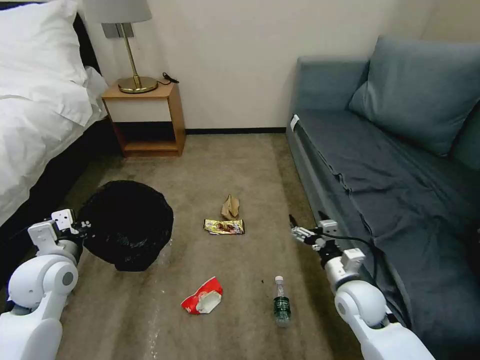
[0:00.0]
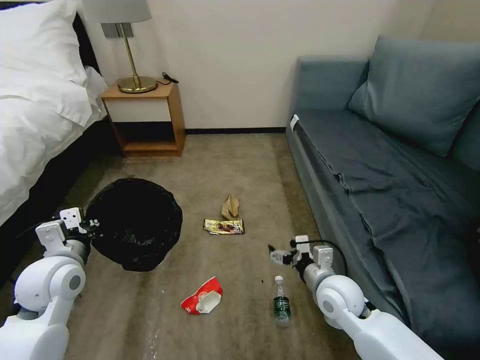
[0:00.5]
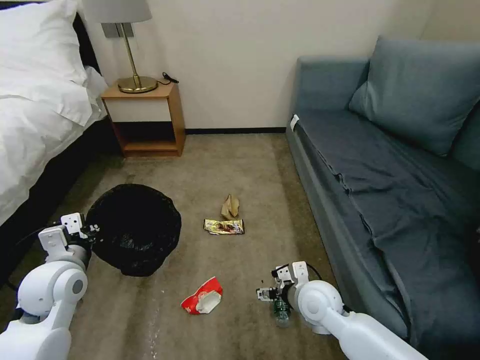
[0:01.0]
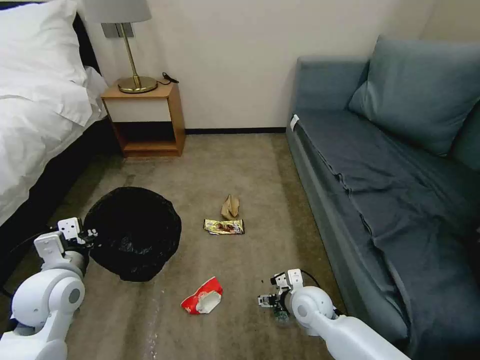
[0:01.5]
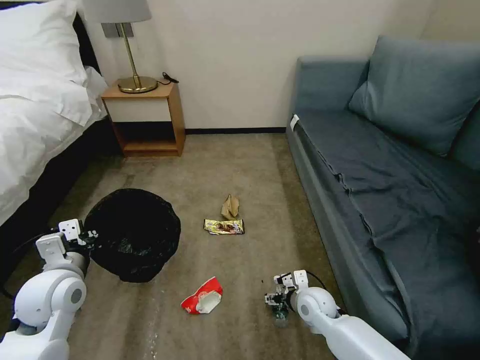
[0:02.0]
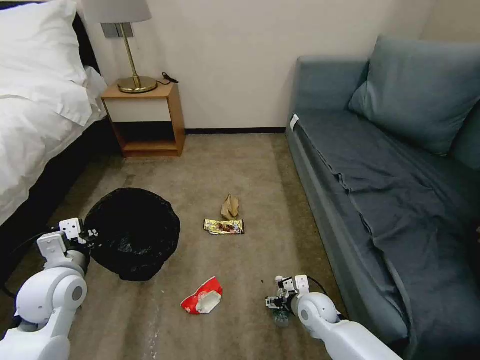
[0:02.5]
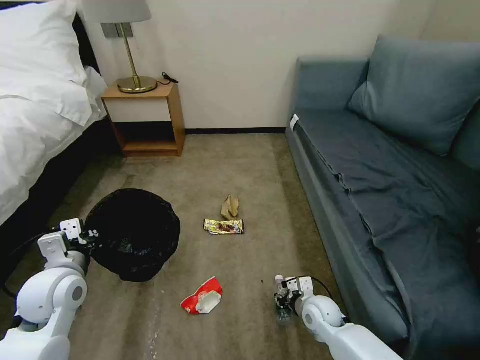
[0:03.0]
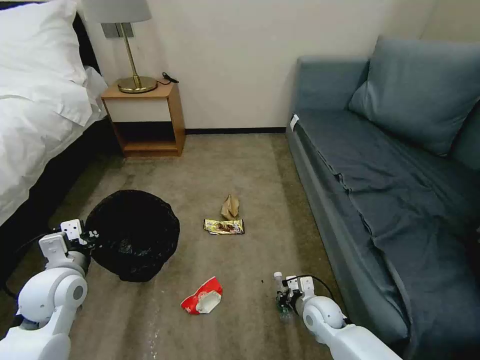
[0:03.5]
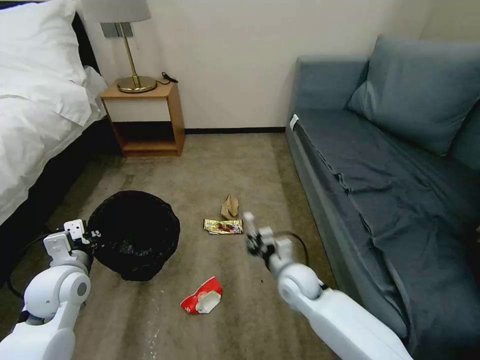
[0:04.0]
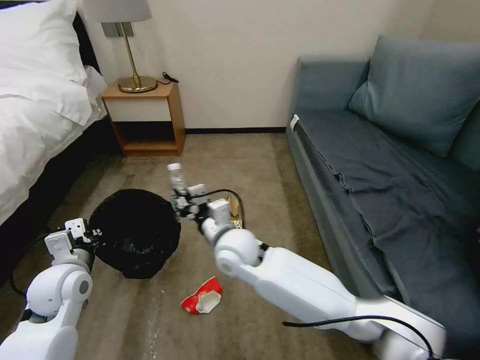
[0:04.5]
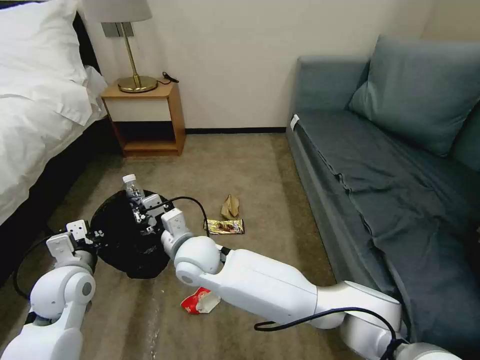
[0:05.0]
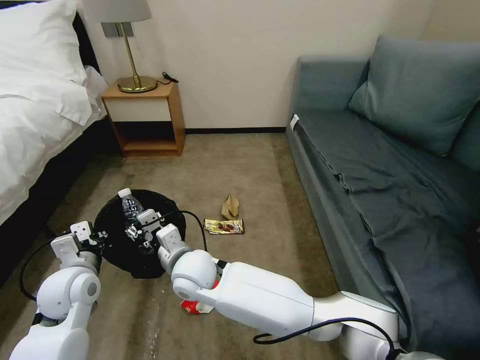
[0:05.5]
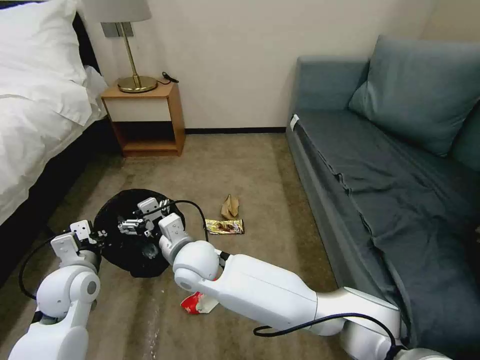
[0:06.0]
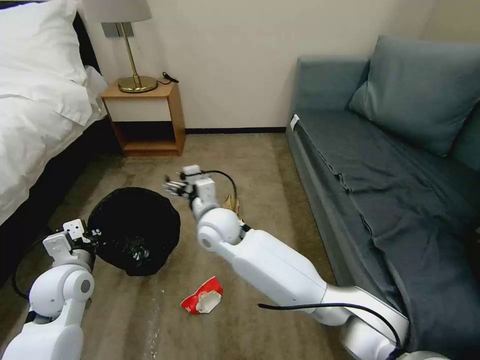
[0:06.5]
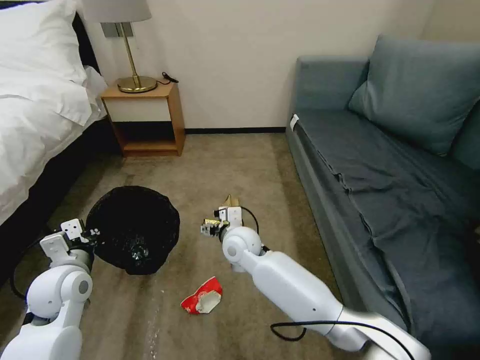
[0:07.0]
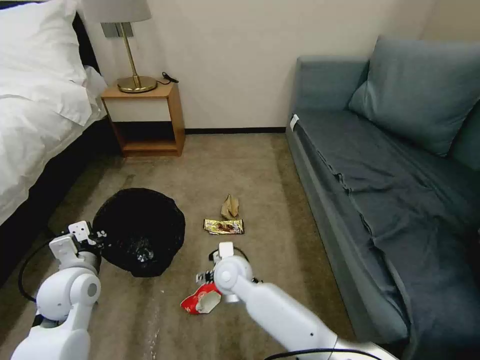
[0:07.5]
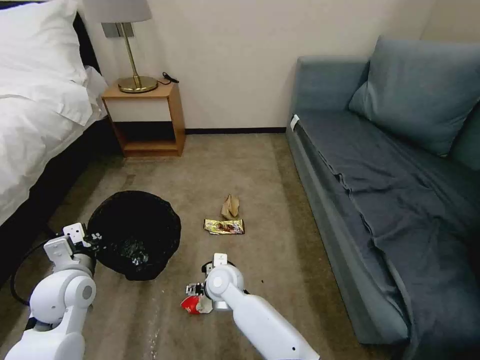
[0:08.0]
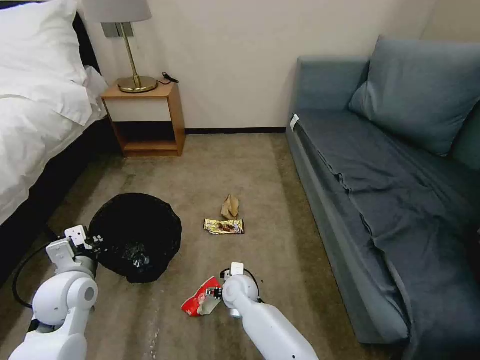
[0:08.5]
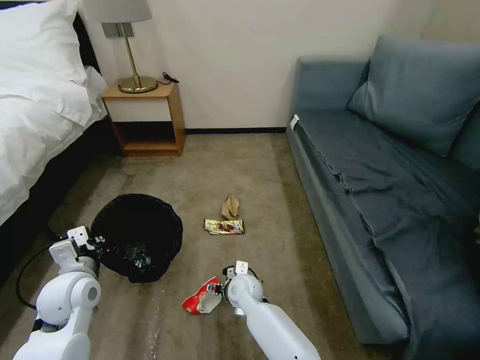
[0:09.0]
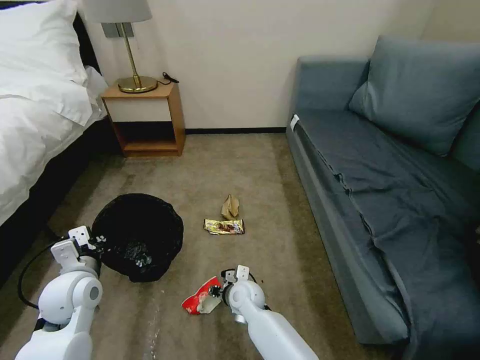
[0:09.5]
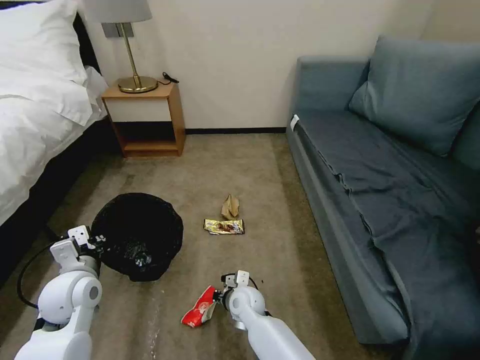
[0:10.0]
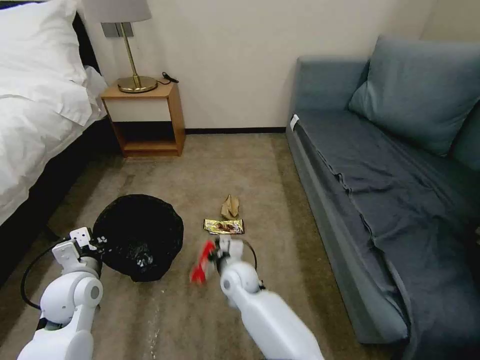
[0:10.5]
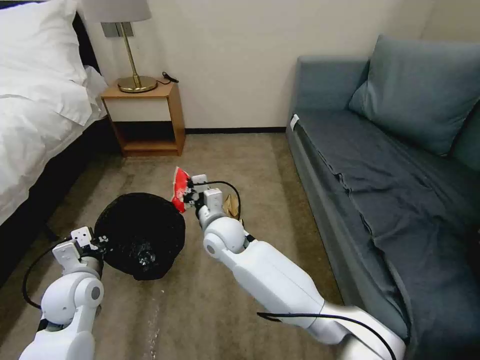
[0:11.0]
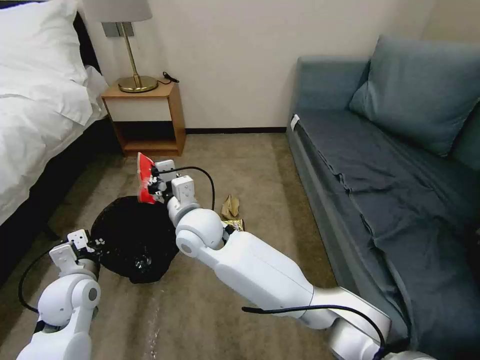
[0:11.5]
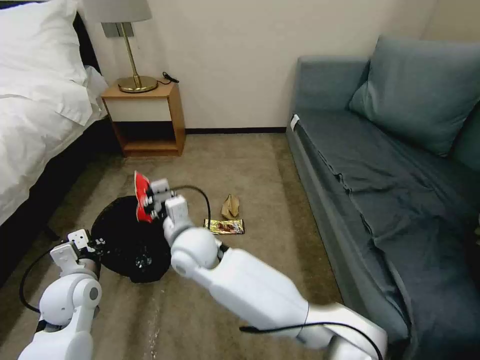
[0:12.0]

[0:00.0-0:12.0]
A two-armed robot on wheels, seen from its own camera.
Task of the whole recording: Pick up the trash bin, then pick up the garbage on the floor and place it into the trash bin.
0:00.0 to 0:02.0: The right gripper travels downward and to the left by approximately 10 cm.
0:02.0 to 0:04.0: The right gripper travels upward by some 5 cm, and closes.
0:04.0 to 0:06.0: The right gripper moves to the left and upward, approximately 30 cm, and opens its fingers.
0:06.0 to 0:08.0: The right gripper travels downward and to the right by approximately 15 cm.
0:08.0 to 0:10.0: The right gripper goes about 10 cm downward and to the right, and closes.
0:10.0 to 0:12.0: The right gripper moves upward and to the left, about 25 cm.

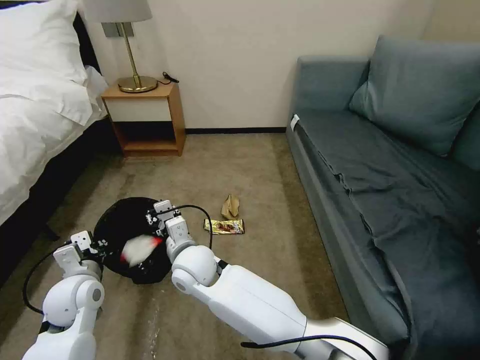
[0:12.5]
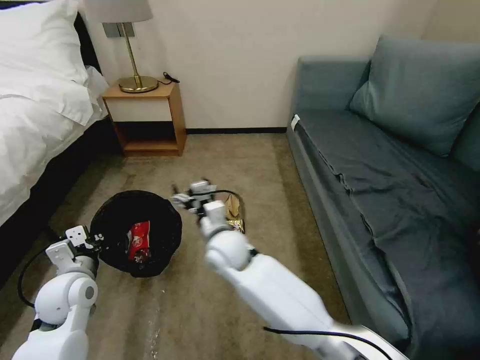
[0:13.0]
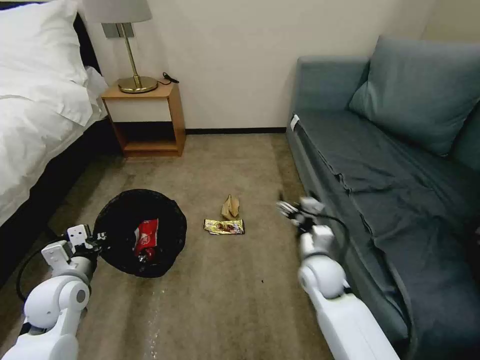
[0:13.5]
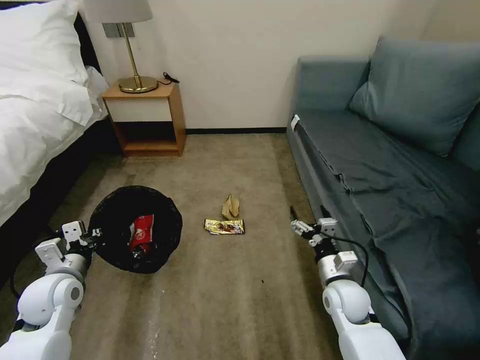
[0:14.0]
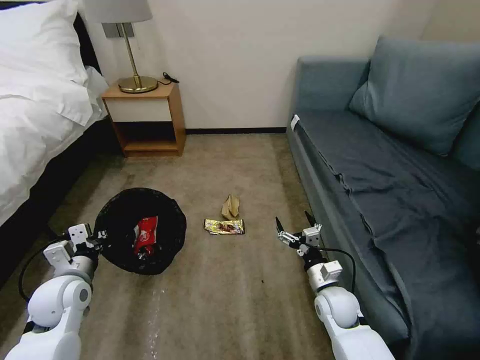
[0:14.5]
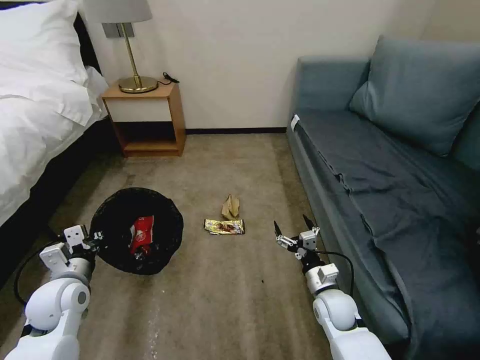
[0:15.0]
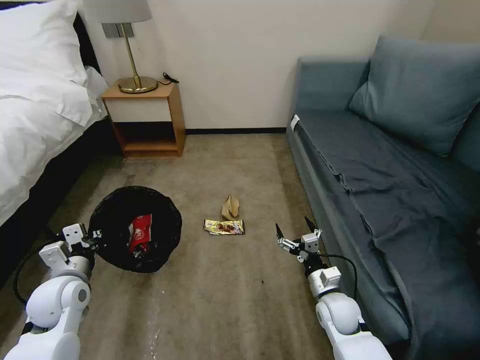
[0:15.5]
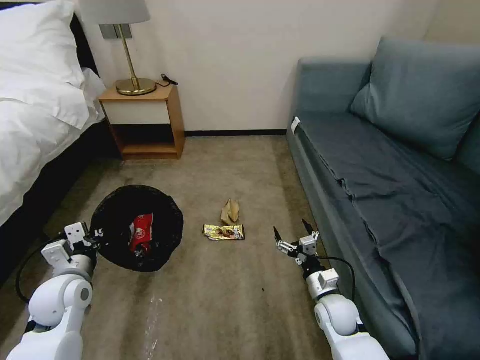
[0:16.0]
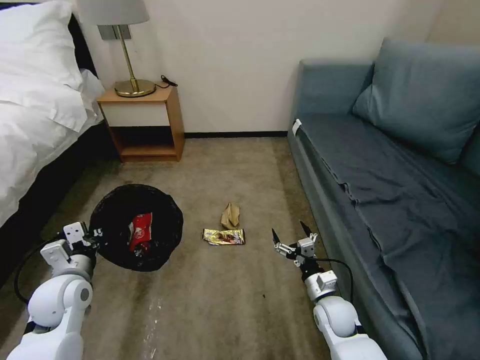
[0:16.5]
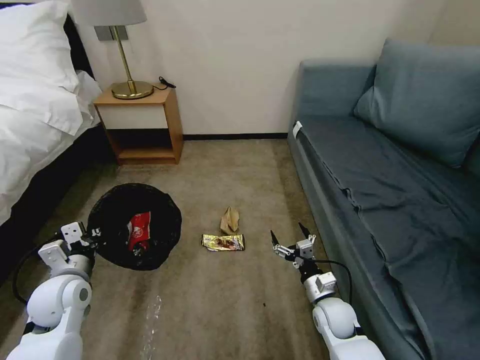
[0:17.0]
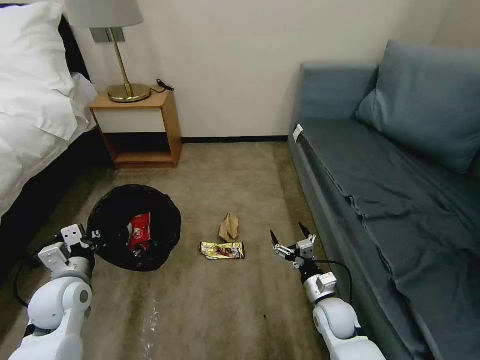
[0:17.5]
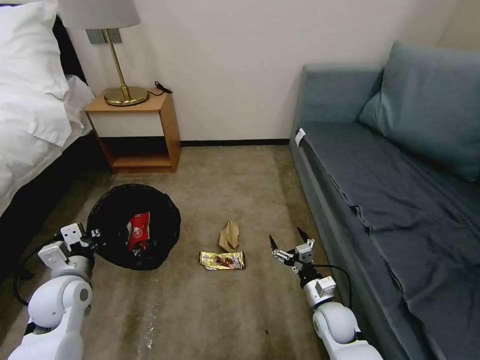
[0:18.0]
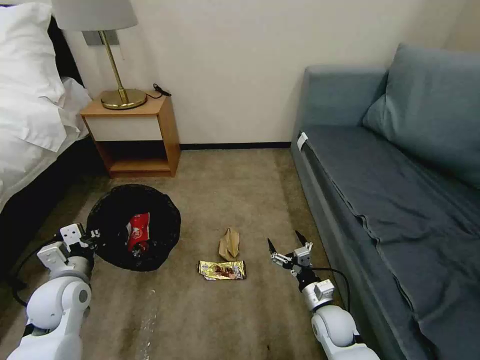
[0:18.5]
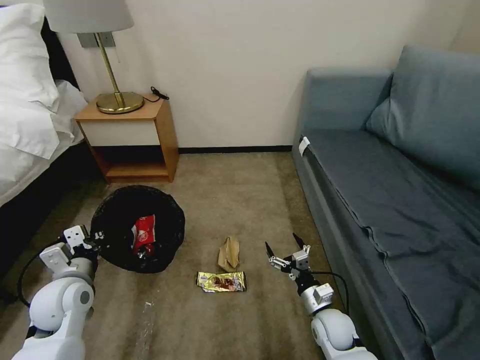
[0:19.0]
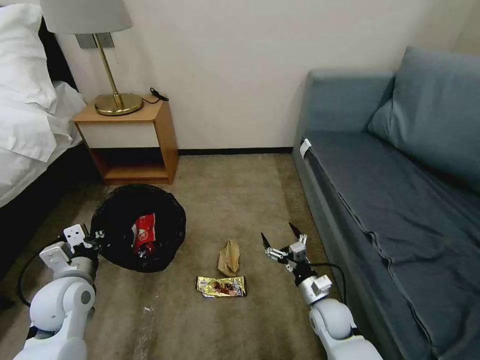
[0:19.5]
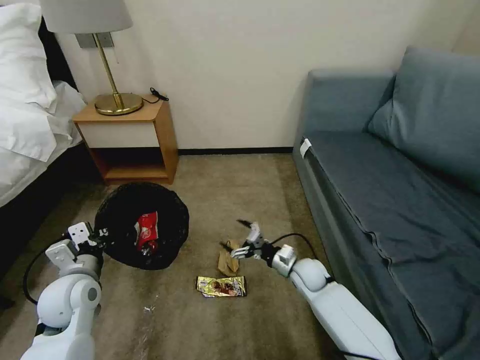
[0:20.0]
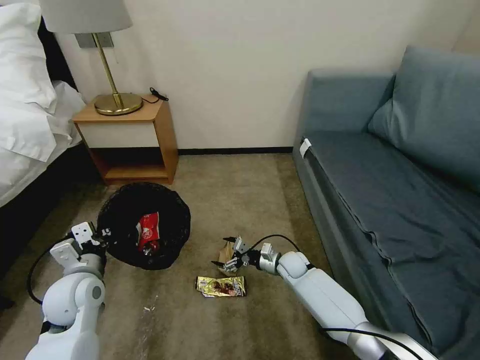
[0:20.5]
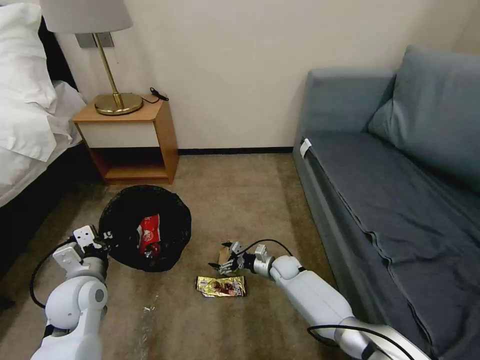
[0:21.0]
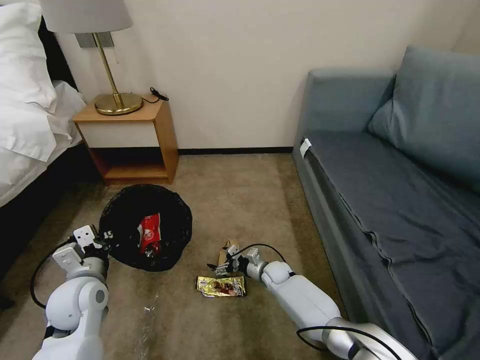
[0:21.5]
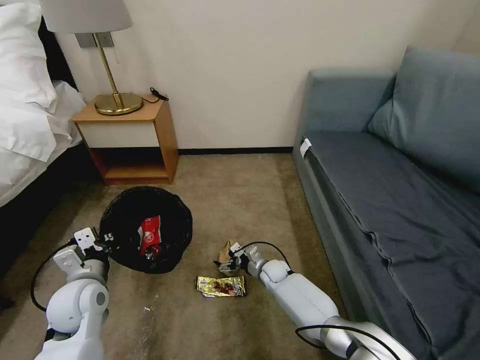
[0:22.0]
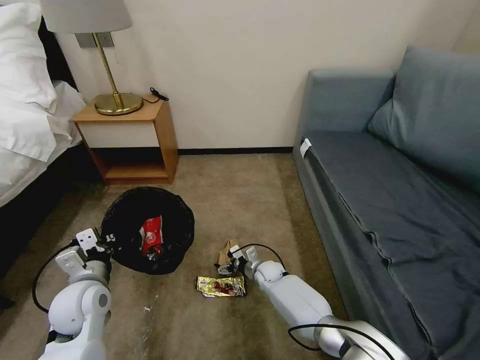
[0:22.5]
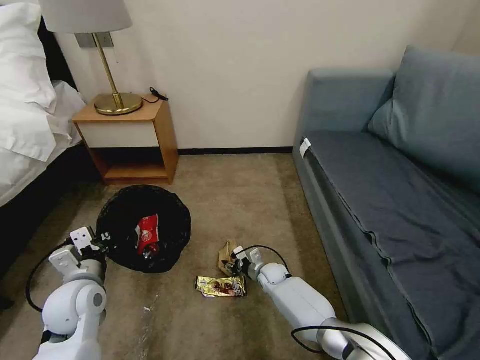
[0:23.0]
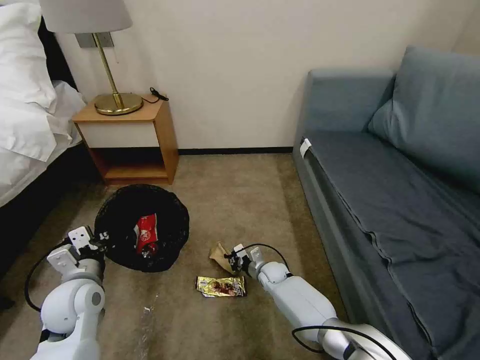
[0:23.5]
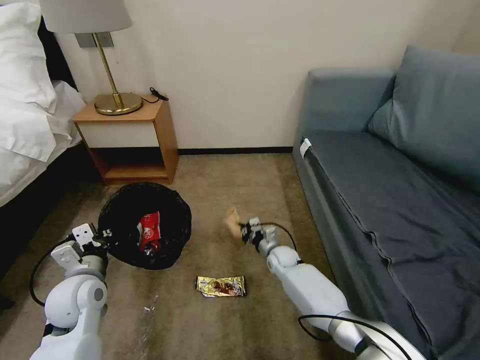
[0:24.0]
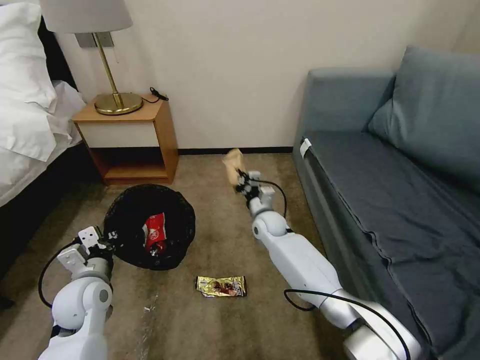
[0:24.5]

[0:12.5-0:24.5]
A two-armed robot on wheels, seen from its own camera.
Task of the whole recording: Pick up the trash bin, then pick up the garbage on the floor and place it into the trash bin.
0:12.5 to 0:14.5: The right gripper shifts roughly 35 cm to the right, and opens up.
0:14.5 to 0:16.5: There are only small adjustments of the grippers.
0:18.5 to 0:20.5: The right gripper travels forward by roughly 15 cm.
0:20.5 to 0:22.5: The right gripper is displaced to the left by roughly 5 cm.
0:22.5 to 0:24.5: The right gripper travels upward and forward by about 20 cm, and closes up.

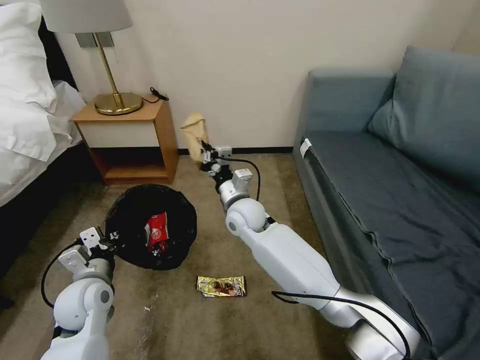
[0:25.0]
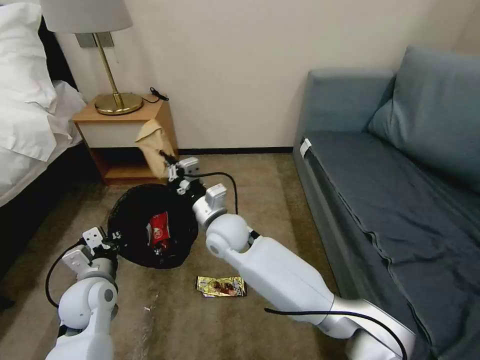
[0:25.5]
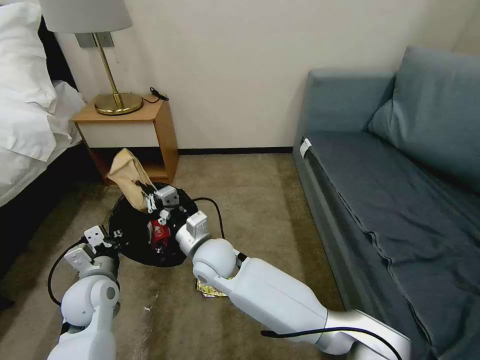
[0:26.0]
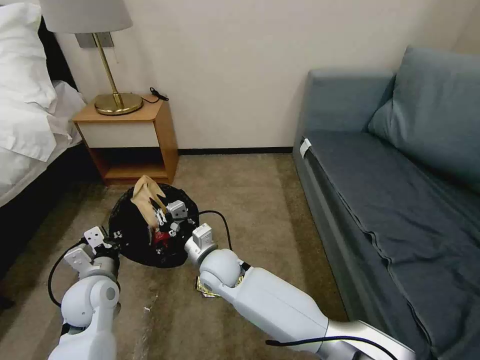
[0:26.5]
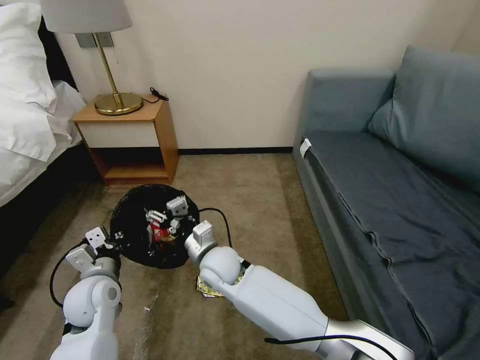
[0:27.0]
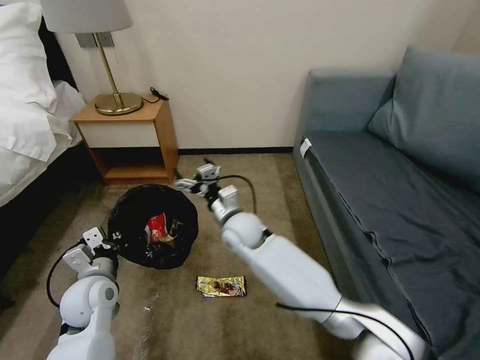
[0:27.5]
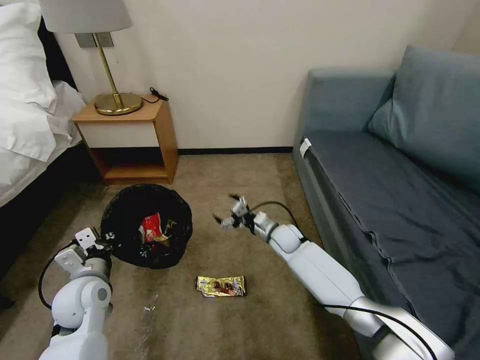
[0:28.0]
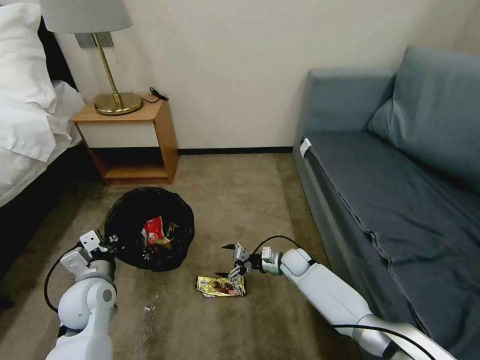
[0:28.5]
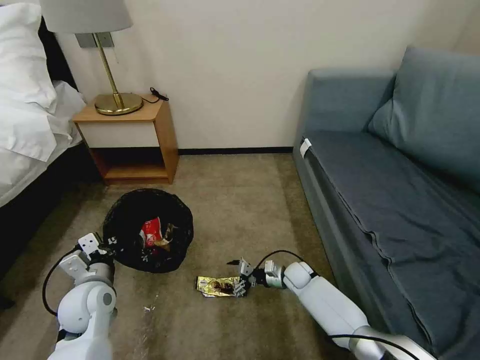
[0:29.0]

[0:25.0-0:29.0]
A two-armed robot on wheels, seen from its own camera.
Task of the whole recording: Pick up the trash bin, then pick up the garbage on the floor and place it into the trash bin.
0:25.0 to 0:27.0: The right gripper goes approximately 15 cm backward, downward and to the left, and opens up.
0:27.0 to 0:29.0: The right gripper travels to the right and downward by roughly 30 cm.
